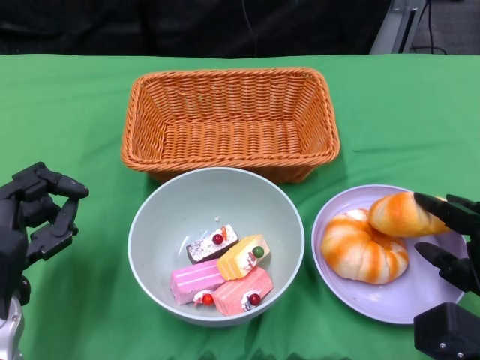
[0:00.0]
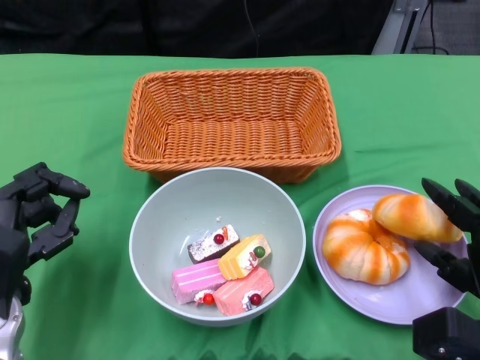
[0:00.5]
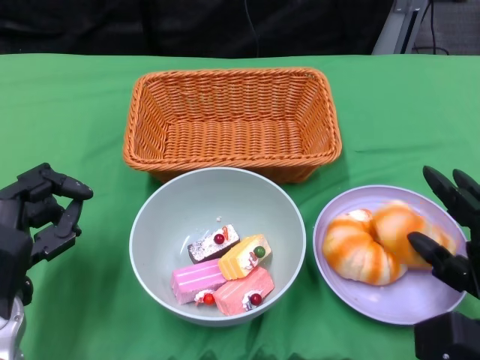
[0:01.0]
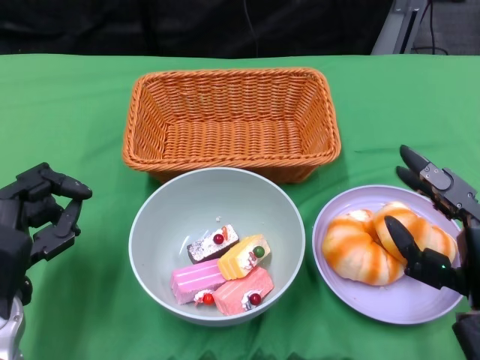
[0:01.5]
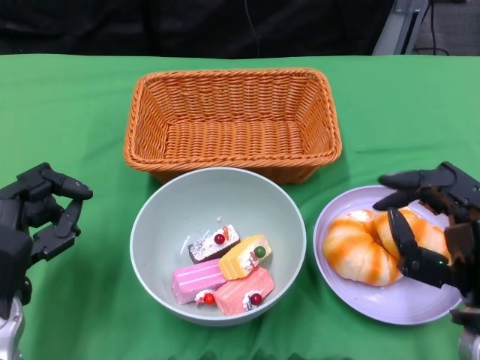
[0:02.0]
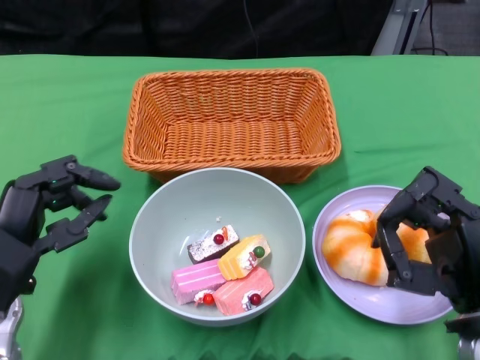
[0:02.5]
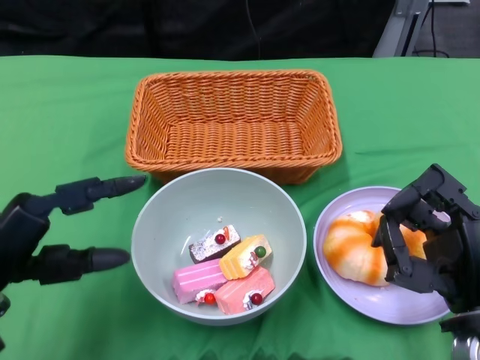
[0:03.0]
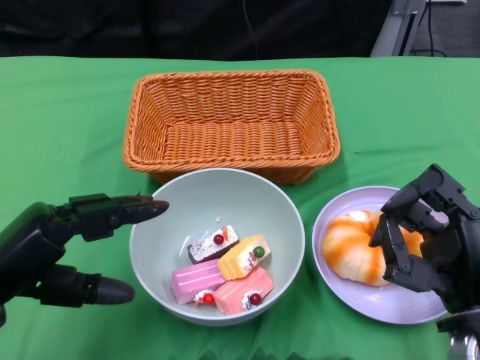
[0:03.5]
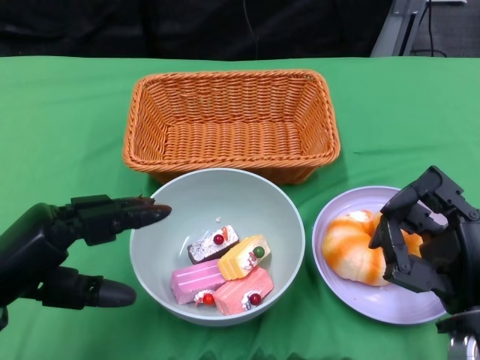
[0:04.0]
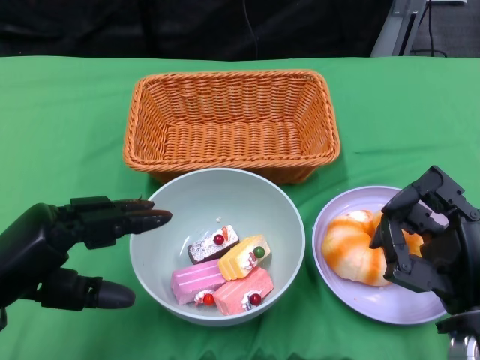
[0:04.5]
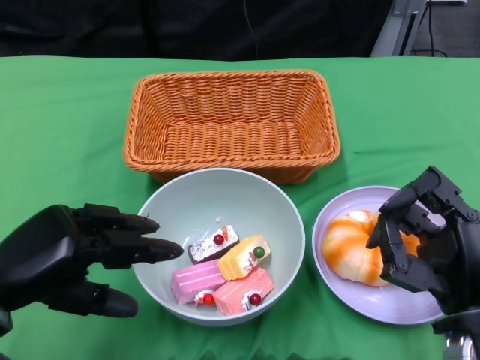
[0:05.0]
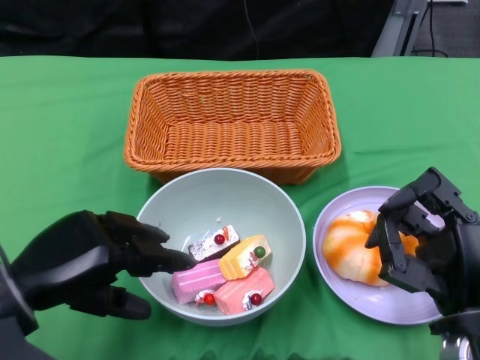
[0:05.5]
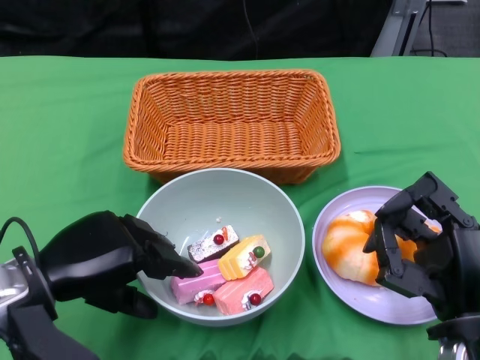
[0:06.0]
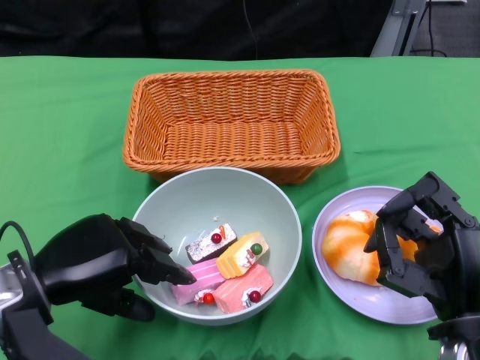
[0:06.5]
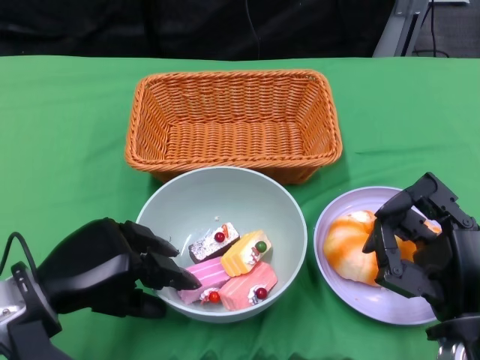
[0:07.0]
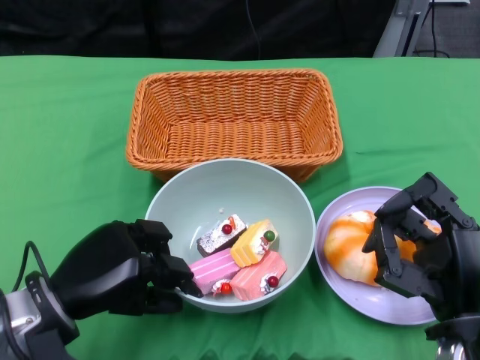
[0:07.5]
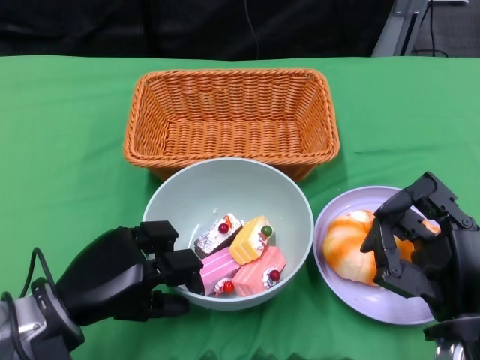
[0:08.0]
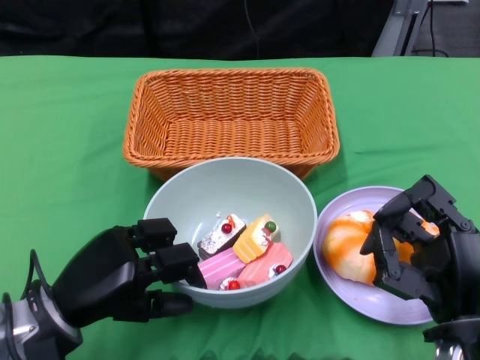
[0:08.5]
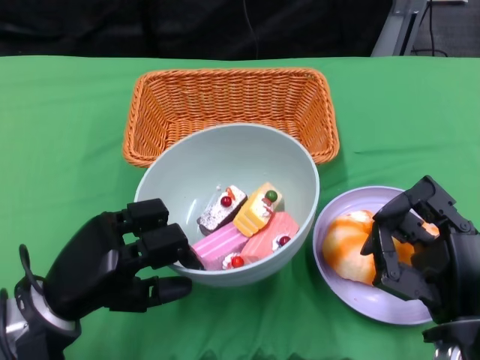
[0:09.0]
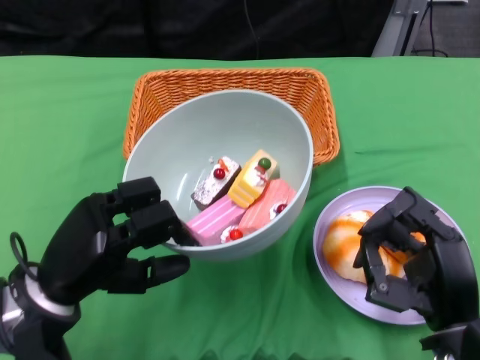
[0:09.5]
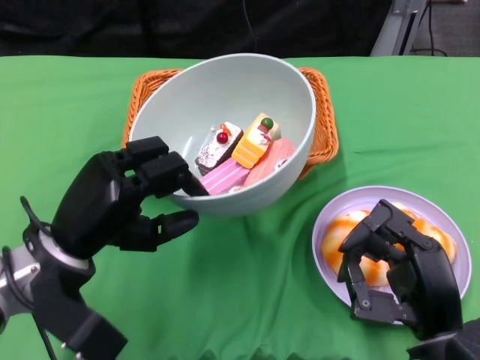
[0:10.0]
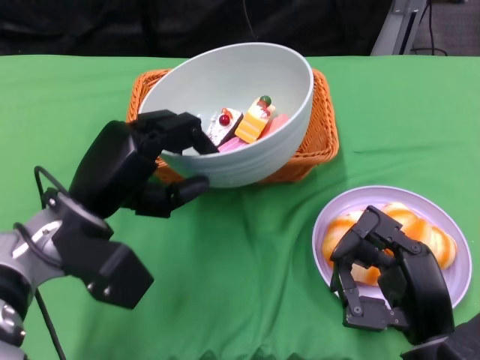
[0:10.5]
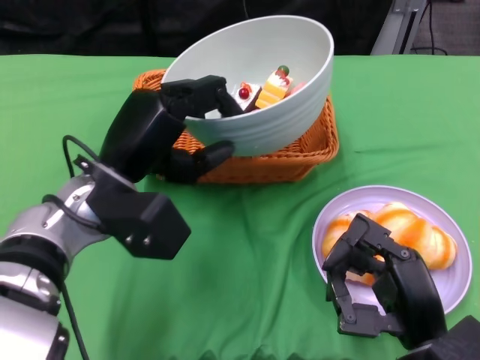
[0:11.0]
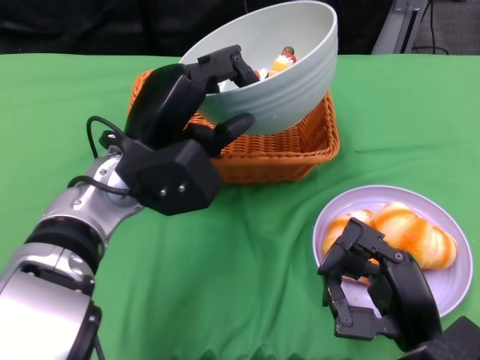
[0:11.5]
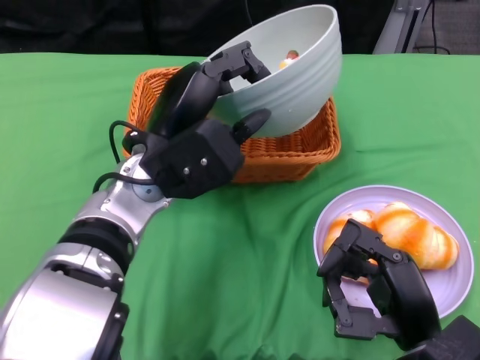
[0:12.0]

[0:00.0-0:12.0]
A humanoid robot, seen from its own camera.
Step, 0:01.5 to 0:08.0: Grasp the bowl with the left gripper.
0:00.0 to 0:02.0: The right hand shifts roughly 5 cm upward.
0:02.0 to 0:04.0: The left hand moves roughly 5 cm.
0:06.0 to 0:08.0: The hands make only small movements.
0:08.0 to 0:10.0: The left hand moves approximately 5 cm.
0:10.0 to 0:12.0: The left hand heads to the right, forward and upward, covering roughly 15 cm.

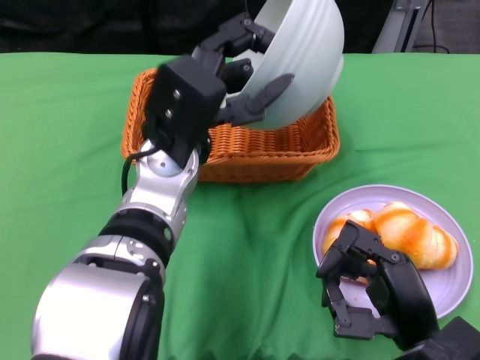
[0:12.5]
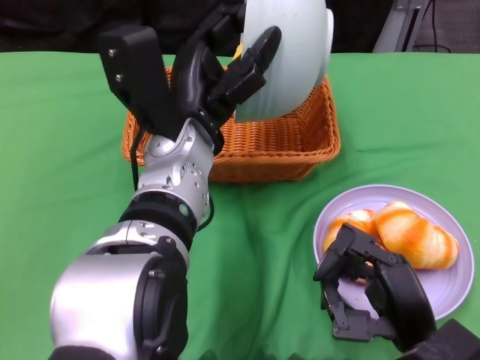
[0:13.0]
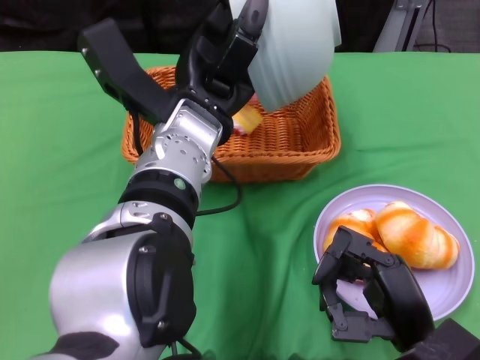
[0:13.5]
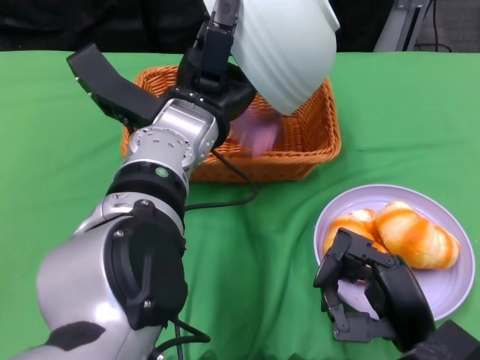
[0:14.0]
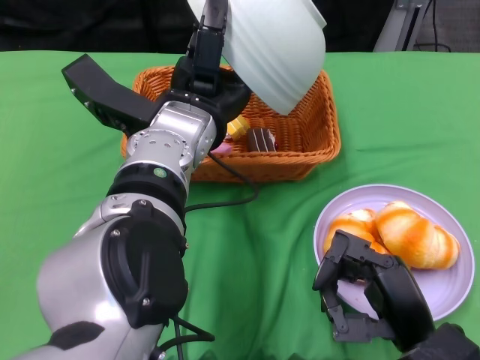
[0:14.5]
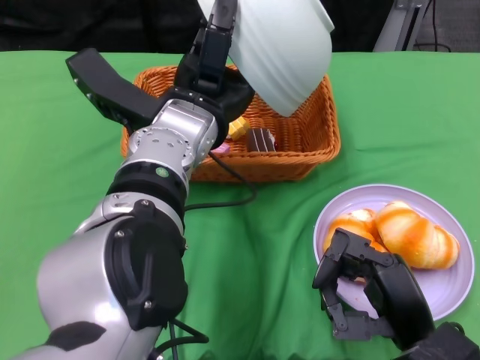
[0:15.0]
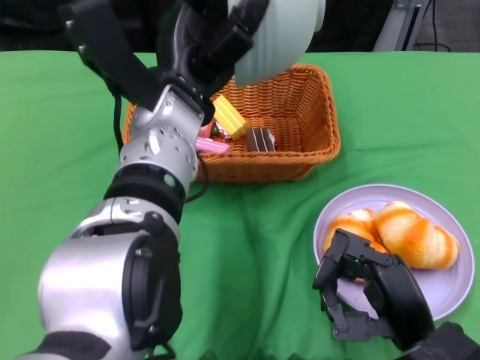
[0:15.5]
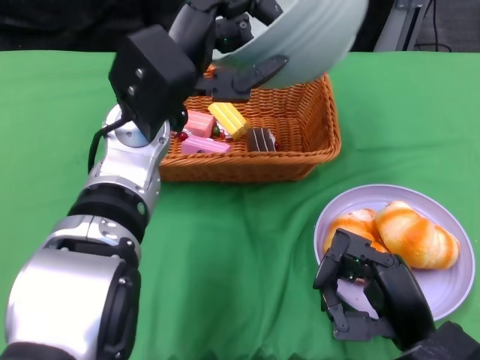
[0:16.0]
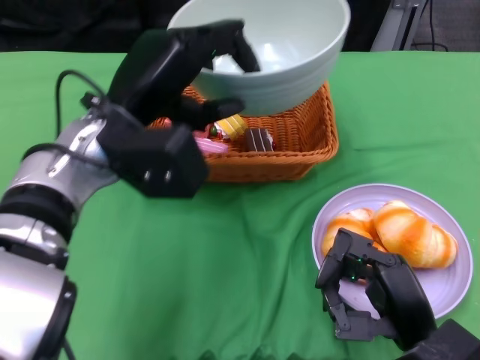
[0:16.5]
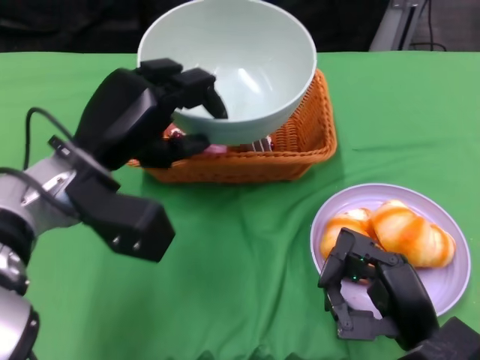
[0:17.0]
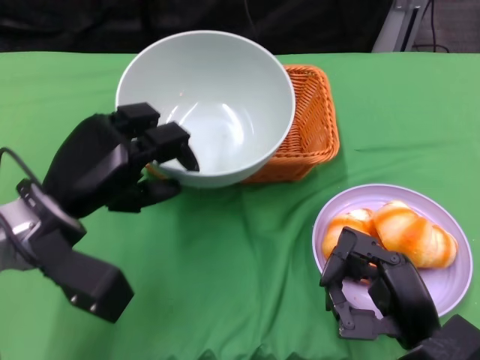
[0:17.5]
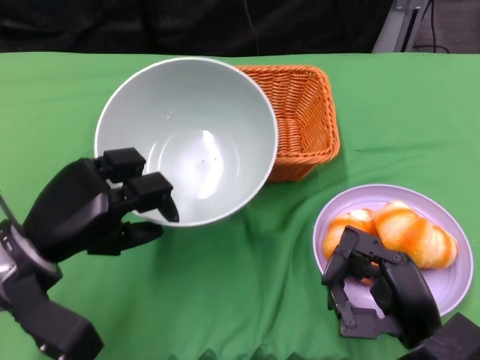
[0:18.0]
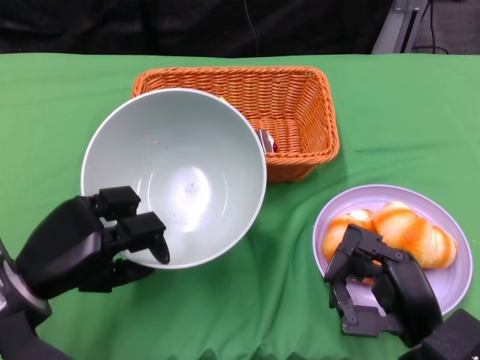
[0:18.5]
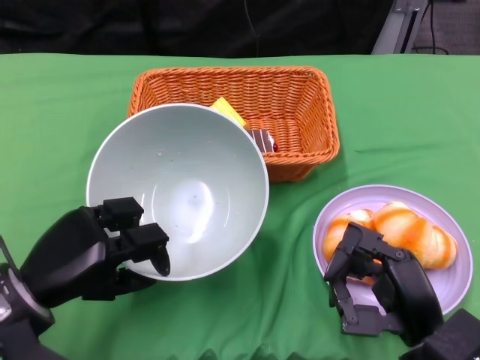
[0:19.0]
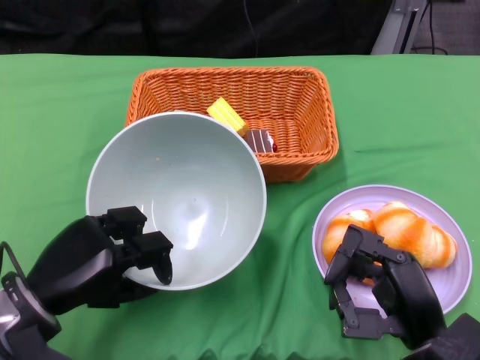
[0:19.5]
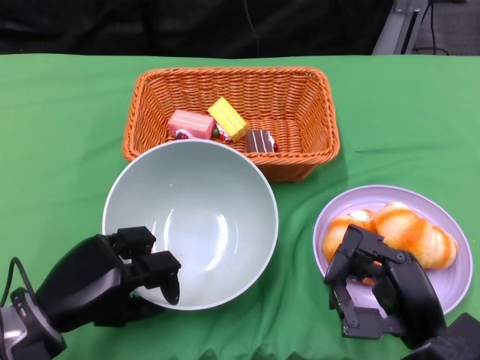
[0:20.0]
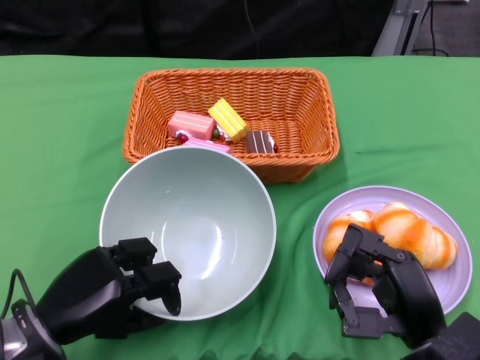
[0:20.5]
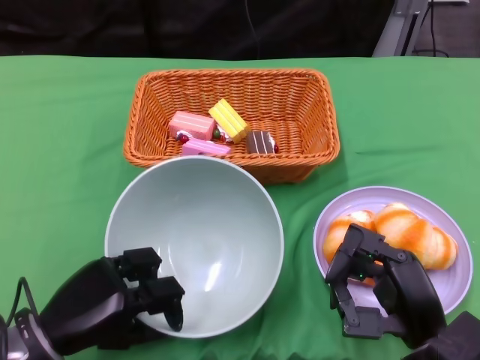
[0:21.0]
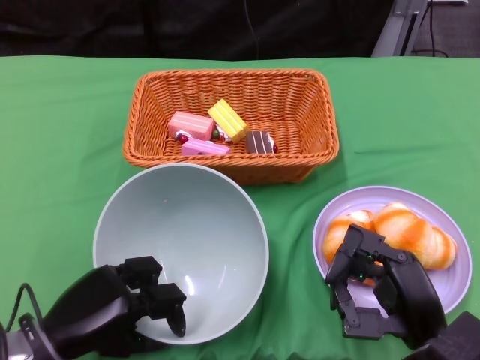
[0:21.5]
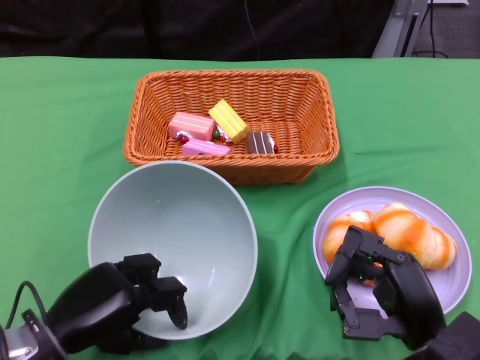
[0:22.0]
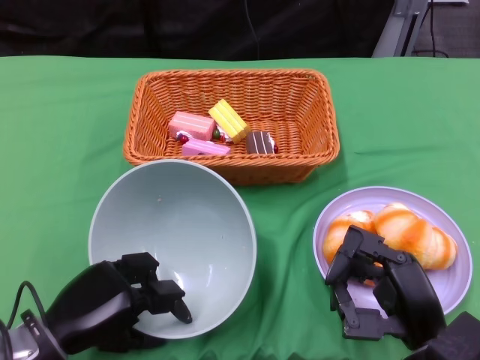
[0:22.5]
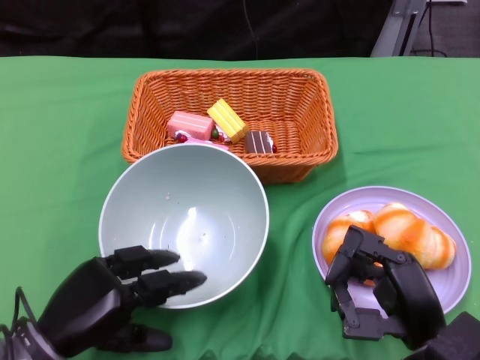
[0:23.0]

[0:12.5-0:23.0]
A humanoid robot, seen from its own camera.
0:14.5 to 0:16.5: The left hand goes about 5 cm to the left.
0:16.5 to 0:19.0: The left hand moves downward, to the left and backward, about 20 cm.
0:21.0 to 0:23.0: The hands stay close to where they were, moving slightly.

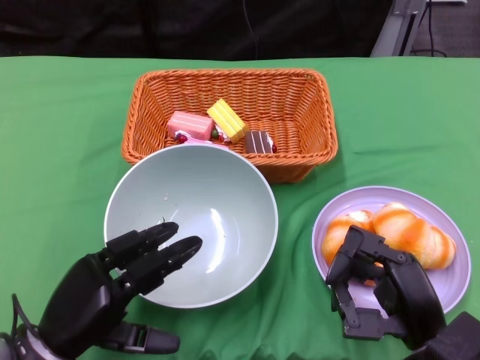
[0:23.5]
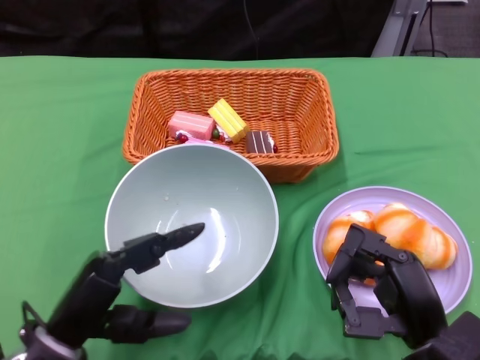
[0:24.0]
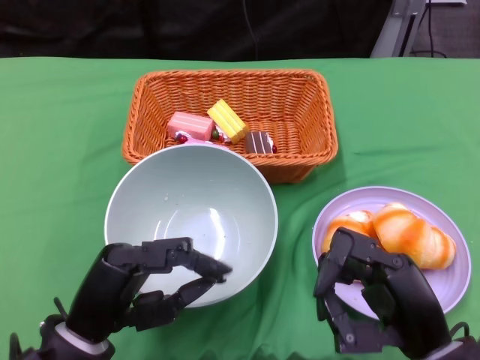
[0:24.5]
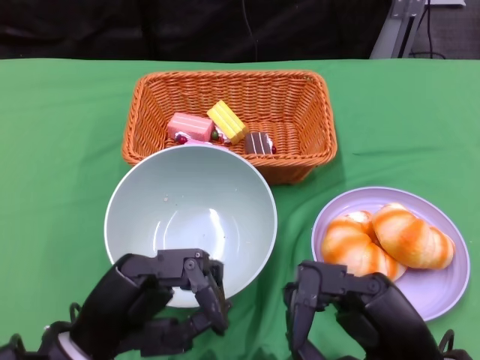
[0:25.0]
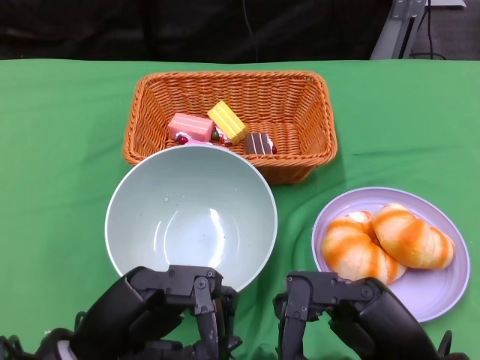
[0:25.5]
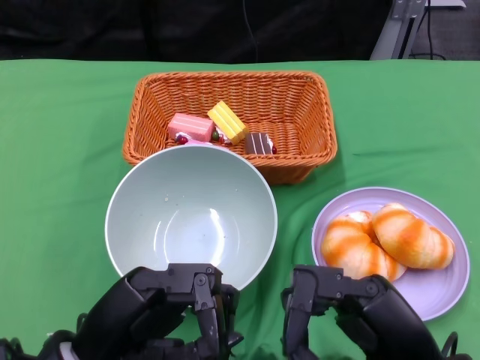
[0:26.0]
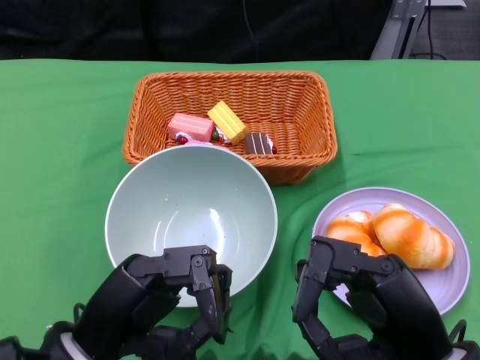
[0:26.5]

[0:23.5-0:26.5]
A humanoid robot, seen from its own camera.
0:23.5 to 0:25.0: The two hands go about 5 cm upward.
0:25.0 to 0:26.5: The hands move only a little.
